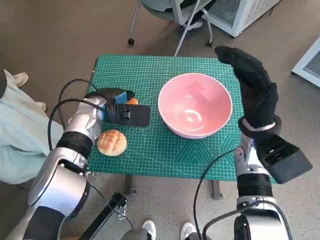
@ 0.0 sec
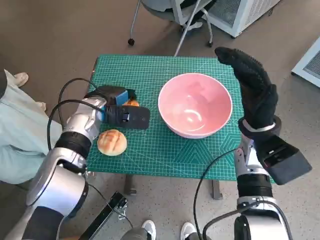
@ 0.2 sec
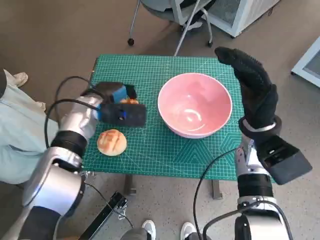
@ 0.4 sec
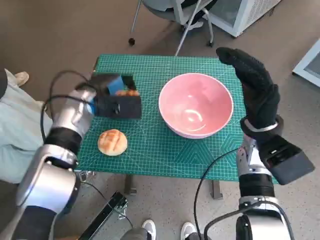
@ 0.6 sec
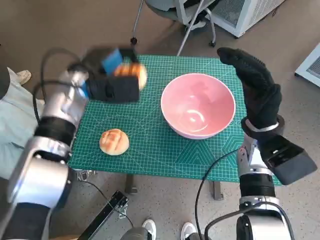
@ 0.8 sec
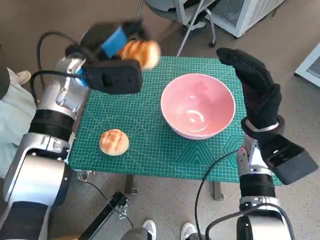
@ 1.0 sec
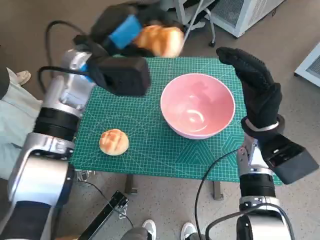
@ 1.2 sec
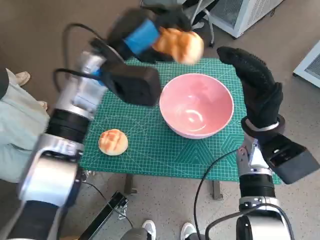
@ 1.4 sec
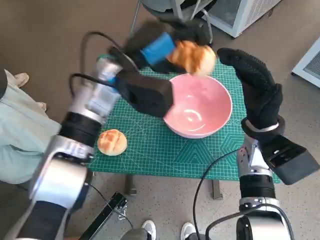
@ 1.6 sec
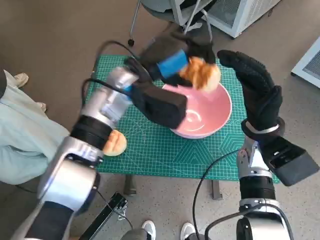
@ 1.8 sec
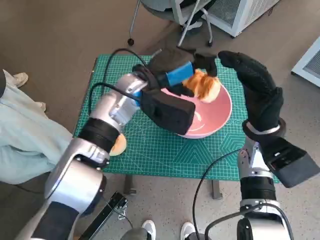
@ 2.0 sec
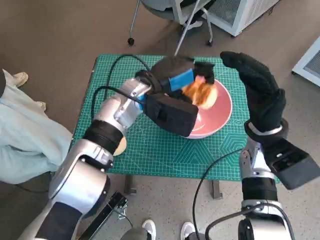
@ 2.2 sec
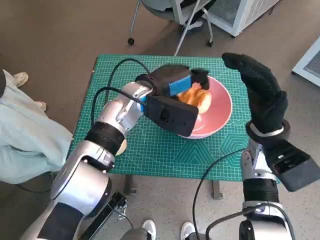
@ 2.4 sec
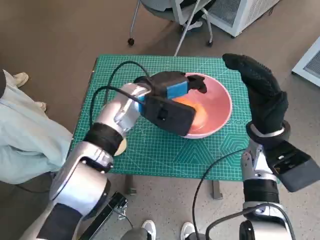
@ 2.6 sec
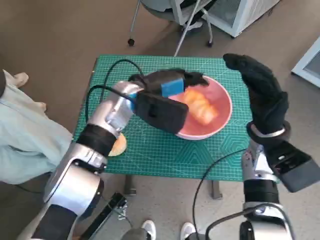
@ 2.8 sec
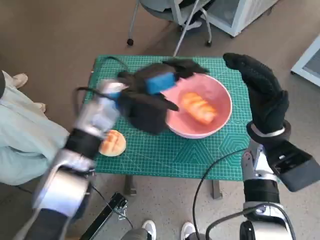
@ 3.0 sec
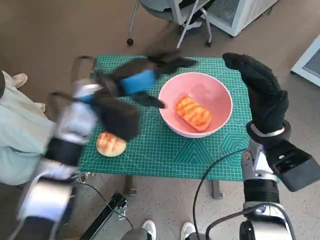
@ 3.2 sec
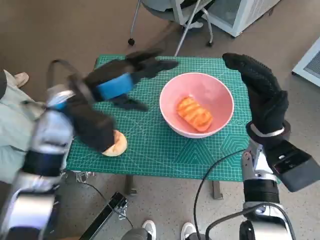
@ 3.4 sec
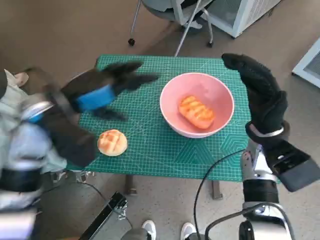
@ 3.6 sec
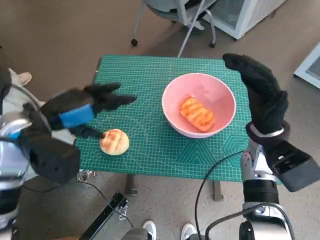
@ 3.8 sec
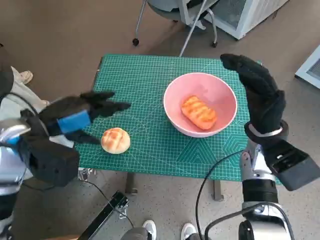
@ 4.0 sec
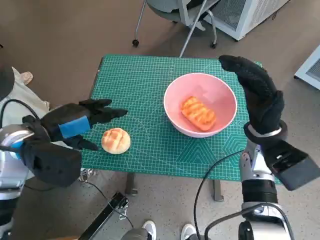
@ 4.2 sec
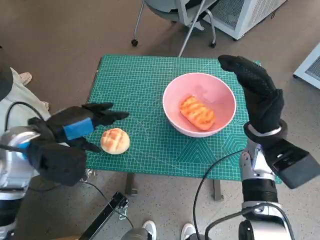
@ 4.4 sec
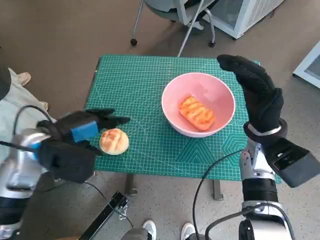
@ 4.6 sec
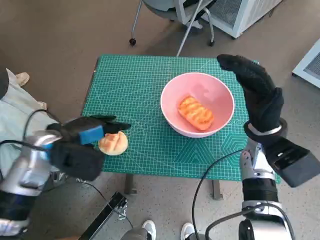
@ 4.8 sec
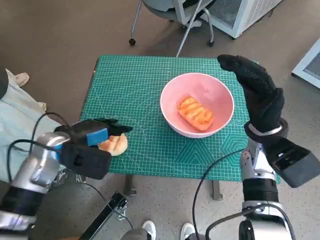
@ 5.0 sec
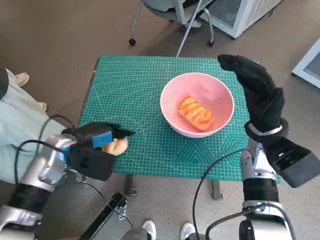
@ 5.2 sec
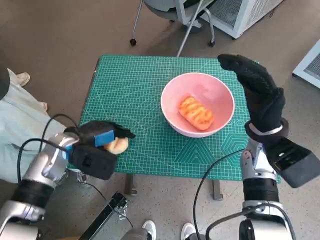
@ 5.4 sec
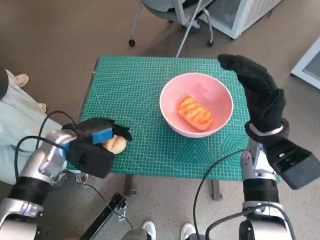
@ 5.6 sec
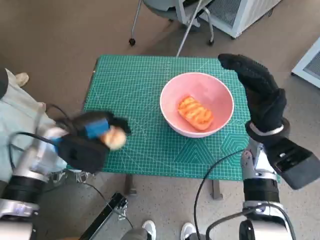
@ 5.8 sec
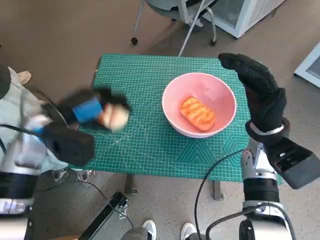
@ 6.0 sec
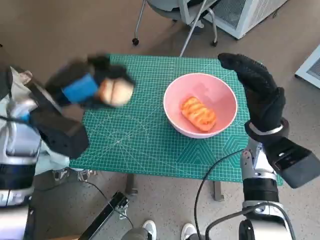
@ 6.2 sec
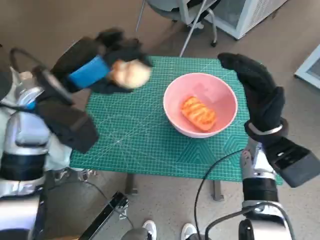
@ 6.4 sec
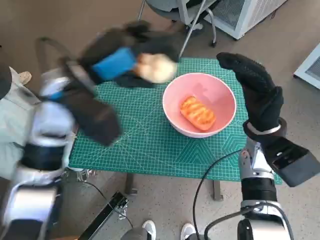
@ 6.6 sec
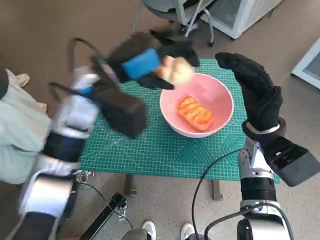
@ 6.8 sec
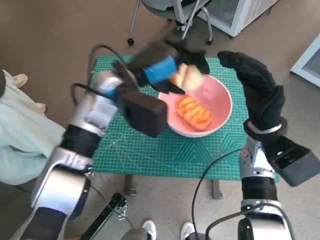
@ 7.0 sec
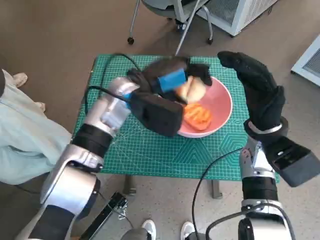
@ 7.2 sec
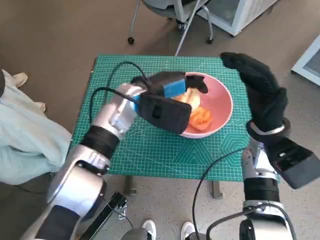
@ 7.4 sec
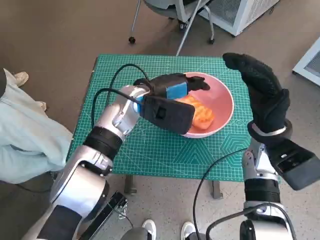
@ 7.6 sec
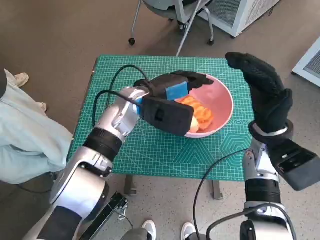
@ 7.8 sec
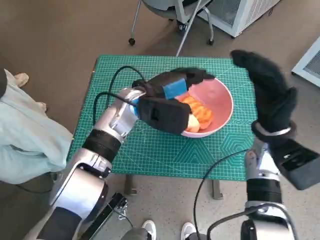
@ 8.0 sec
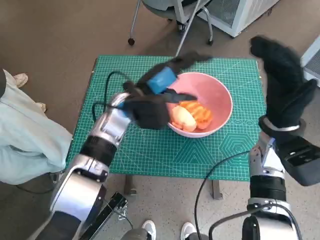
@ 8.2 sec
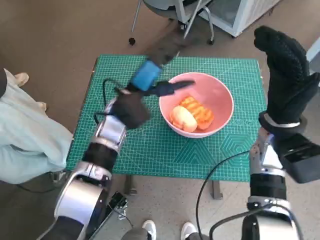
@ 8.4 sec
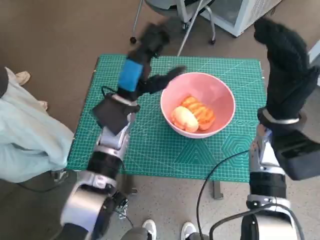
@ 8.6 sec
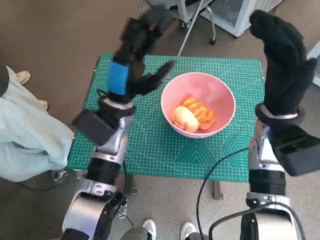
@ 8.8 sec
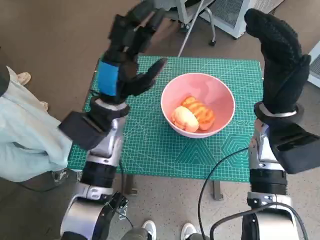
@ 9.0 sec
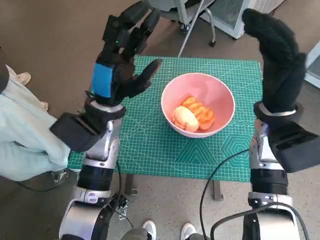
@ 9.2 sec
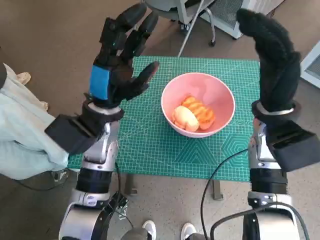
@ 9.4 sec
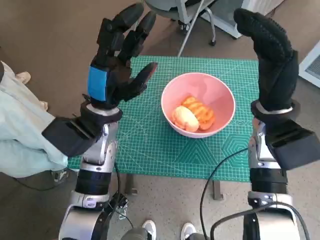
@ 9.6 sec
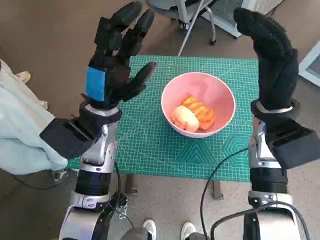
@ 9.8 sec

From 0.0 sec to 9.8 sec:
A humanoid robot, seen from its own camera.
Task of the whole recording: Push the bowl to the center of the table and put the bread into the bowl.
Step, from 0.4 sec to 2.6 sec: Place the long bread in pink bowl with left hand.
Step, from 2.8 sec to 5.4 sec: Grasp the round bread with left hand.
Step, from 5.6 sec to 7.4 sec: Place the round bread in pink bowl with left hand.
From 0.0 sec to 1.4 sec: The left hand shifts approximately 15 cm upward.
From 1.4 sec to 2.8 sec: The left hand goes about 5 cm downward.
From 2.8 sec to 4.2 sec: The left hand moves to the left and backward, about 20 cm.
From 4.2 sec to 5.6 sec: The left hand travels downward by about 10 cm.
From 5.6 sec to 7.0 sec: The left hand travels to the right, upward and forward by approximately 20 cm.
From 7.0 sec to 8.4 sec: The left hand heads downward, covering some 5 cm.
From 8.4 sec to 9.8 sec: The left hand moves approximately 5 cm.

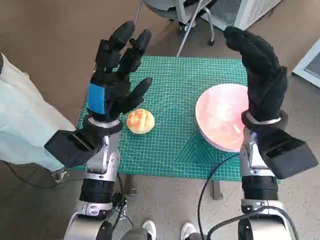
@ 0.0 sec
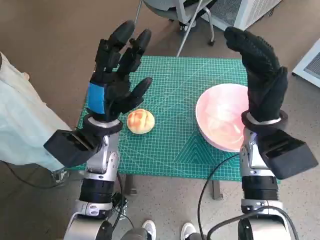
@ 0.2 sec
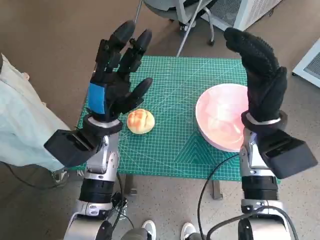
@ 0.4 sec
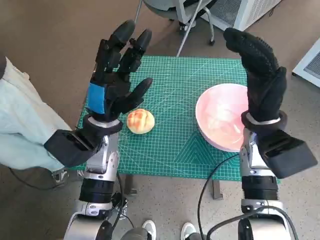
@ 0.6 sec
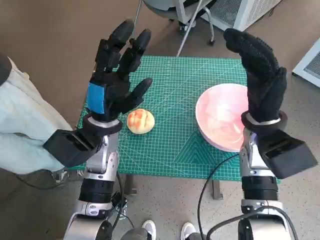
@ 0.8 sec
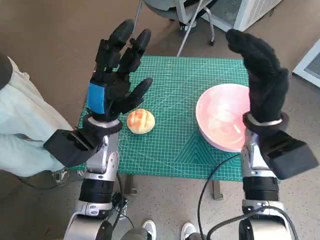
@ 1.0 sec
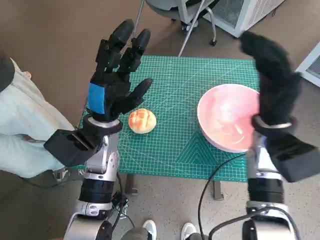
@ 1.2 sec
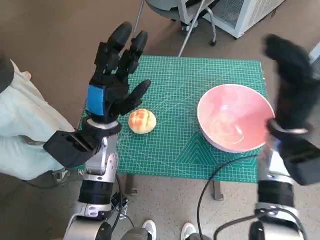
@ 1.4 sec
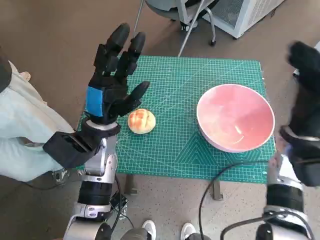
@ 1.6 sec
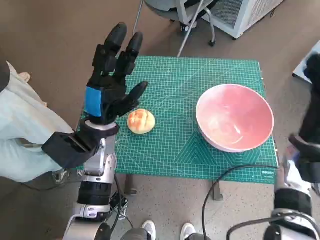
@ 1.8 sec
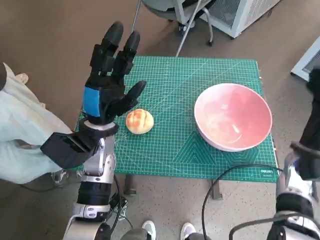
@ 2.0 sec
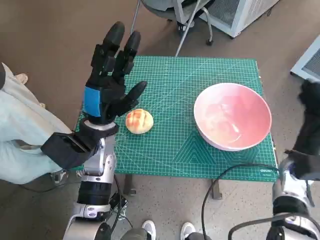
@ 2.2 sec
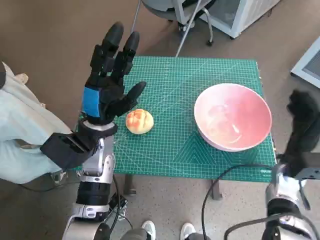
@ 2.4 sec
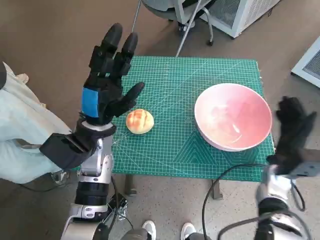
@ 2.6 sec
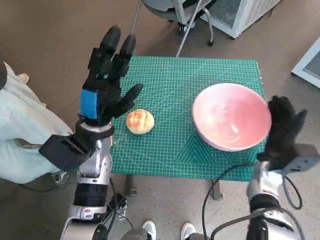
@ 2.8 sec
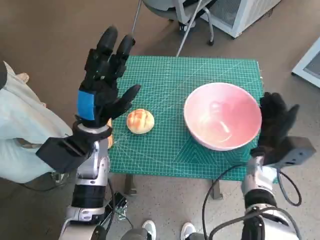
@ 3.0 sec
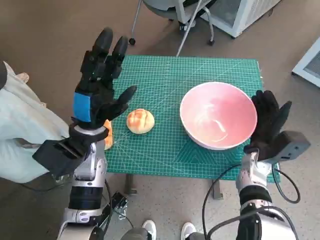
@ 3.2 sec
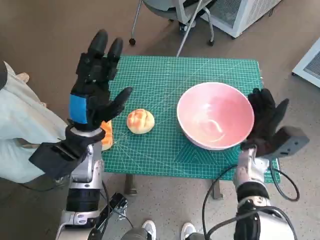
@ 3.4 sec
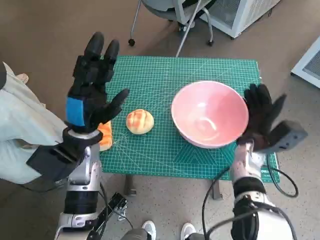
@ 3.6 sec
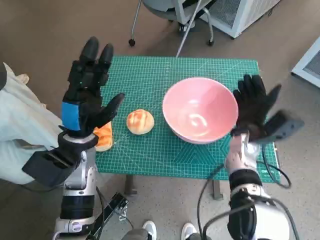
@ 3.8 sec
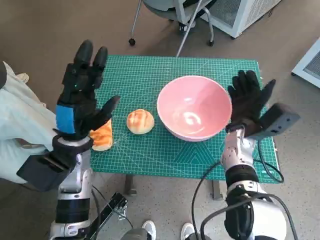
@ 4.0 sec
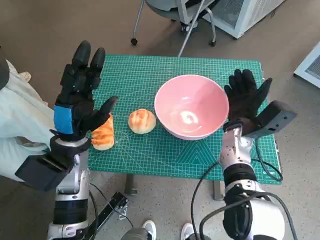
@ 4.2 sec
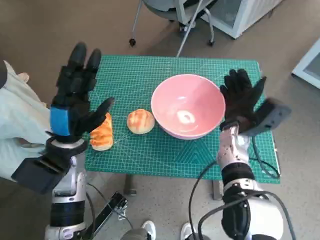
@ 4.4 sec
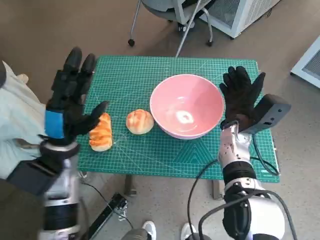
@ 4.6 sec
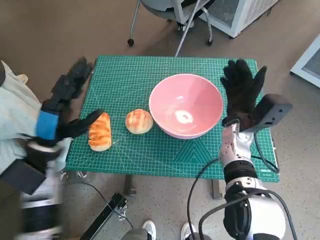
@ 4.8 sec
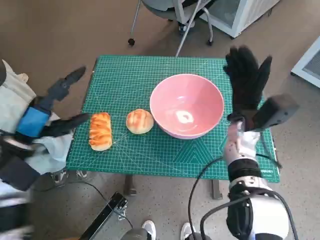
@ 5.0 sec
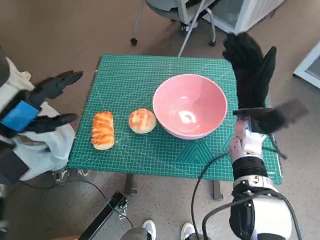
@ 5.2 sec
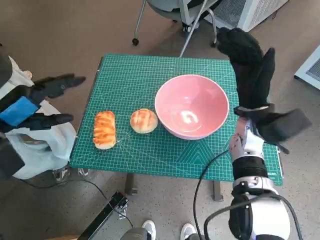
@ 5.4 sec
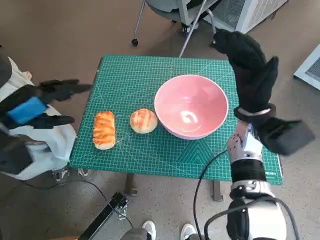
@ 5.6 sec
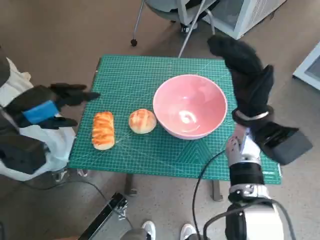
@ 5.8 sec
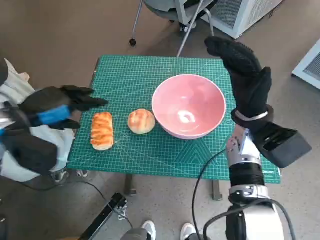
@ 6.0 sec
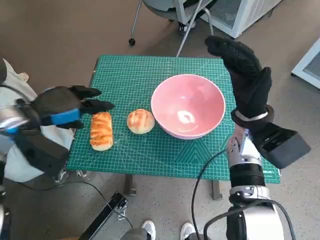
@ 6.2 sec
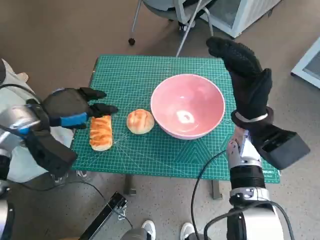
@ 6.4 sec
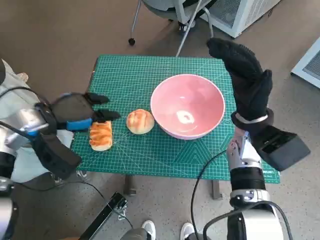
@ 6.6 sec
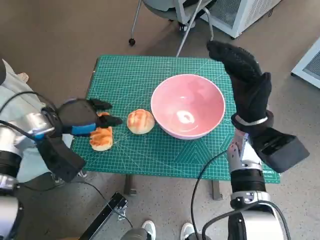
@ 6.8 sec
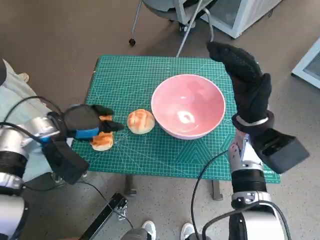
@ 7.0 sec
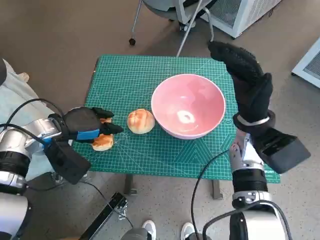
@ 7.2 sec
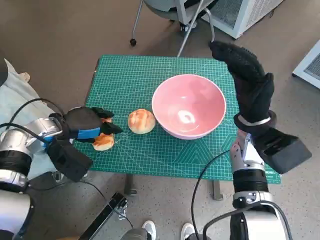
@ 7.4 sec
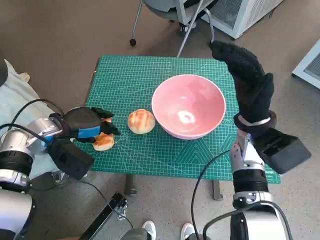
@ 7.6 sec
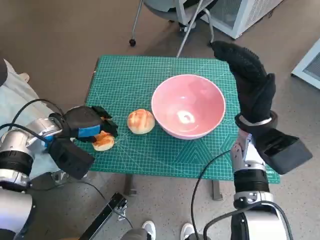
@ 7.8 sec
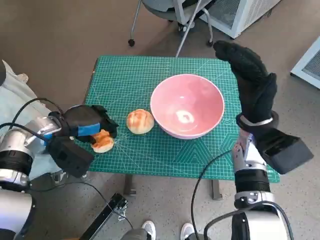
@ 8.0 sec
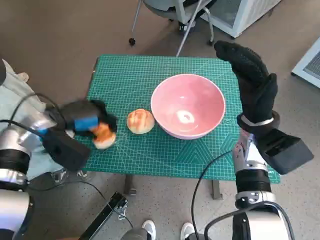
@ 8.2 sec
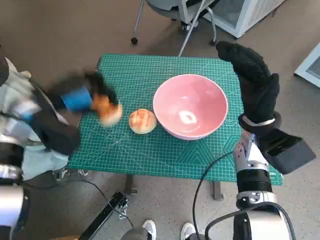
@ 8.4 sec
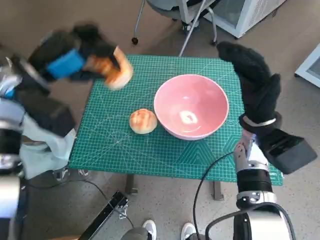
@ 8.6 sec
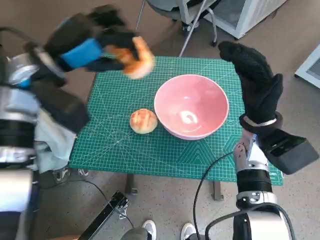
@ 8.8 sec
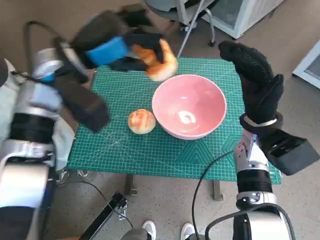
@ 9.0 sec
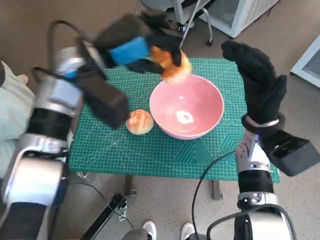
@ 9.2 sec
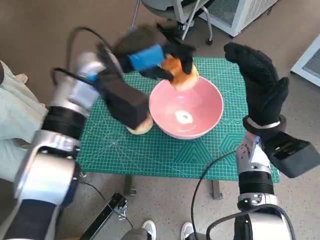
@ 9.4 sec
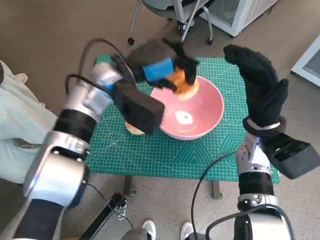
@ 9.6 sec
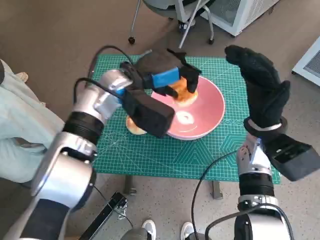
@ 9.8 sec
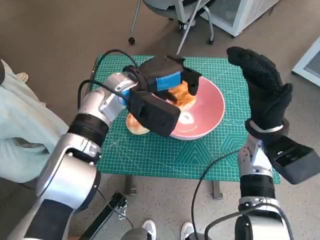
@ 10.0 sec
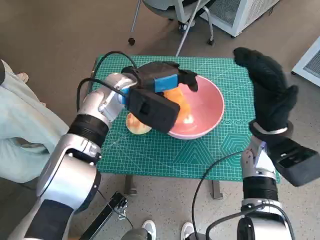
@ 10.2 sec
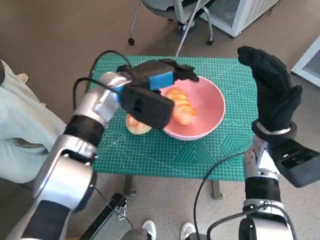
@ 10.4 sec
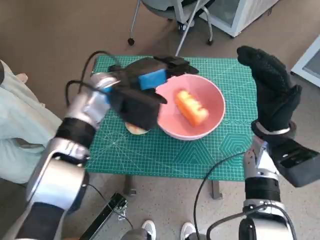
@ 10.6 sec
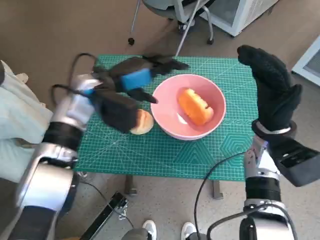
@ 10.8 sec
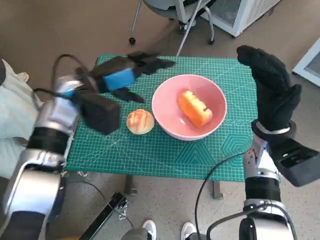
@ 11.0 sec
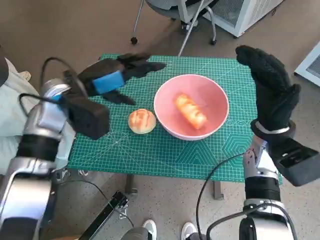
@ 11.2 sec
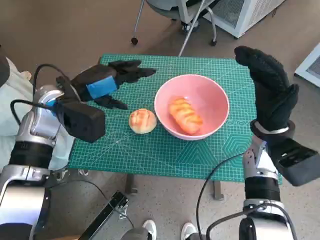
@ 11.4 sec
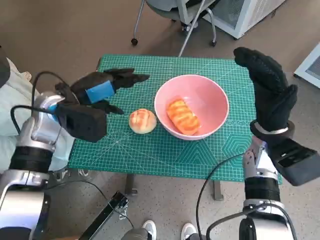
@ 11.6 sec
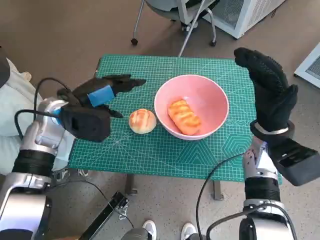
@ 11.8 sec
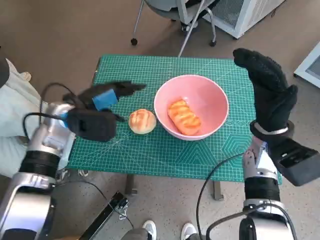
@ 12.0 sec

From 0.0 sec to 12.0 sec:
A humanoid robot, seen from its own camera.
Task of the whole recording: Push the bowl to the center of the table and put the bread into the bowl.
Step, from 0.0 sec to 4.8 sec: Move the pink bowl to the center of table with right hand.
Step, from 5.0 sec to 7.8 sec: Grasp the long bread with left hand.
Step, from 8.0 sec to 10.2 sec: Place the long bread in pink bowl with left hand.
From 1.6 sec to 3.0 sec: The right hand heads downward, covering about 10 cm.
From 3.0 sec to 4.4 sec: The right hand shifts about 5 cm to the left.
From 4.4 sec to 6.0 sec: The left hand moves to the left and upward, about 10 cm; the right hand moves upward, some 5 cm.
From 6.0 sec to 7.6 sec: The left hand moves downward, approximately 5 cm.
From 7.6 sec to 9.0 sec: The left hand travels upward and to the right by about 15 cm.
From 9.0 sec to 10.4 sec: The left hand shifts about 10 cm to the right and downward.
From 10.4 sec to 12.0 sec: The left hand travels to the left by roughly 10 cm.
